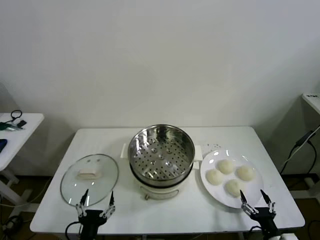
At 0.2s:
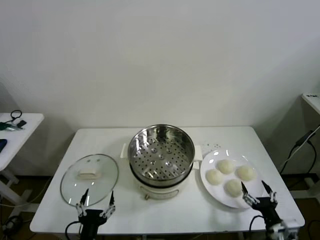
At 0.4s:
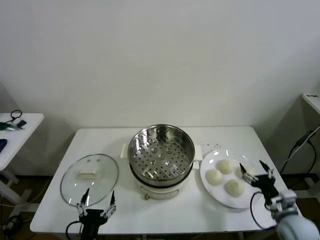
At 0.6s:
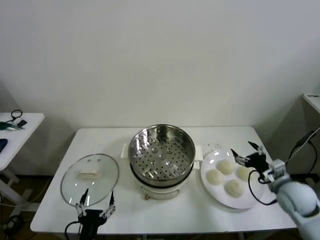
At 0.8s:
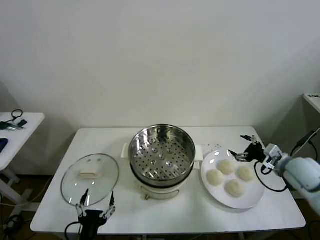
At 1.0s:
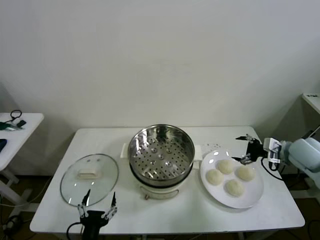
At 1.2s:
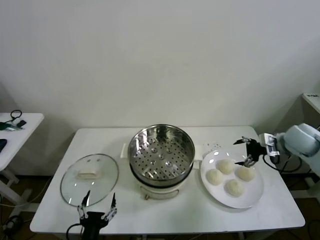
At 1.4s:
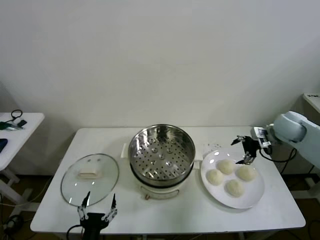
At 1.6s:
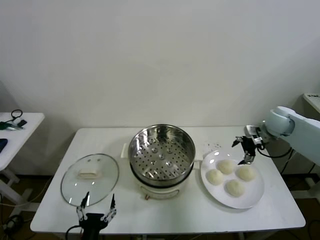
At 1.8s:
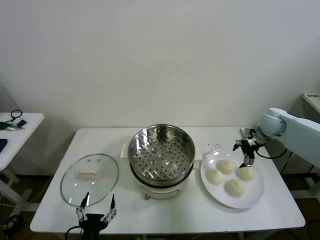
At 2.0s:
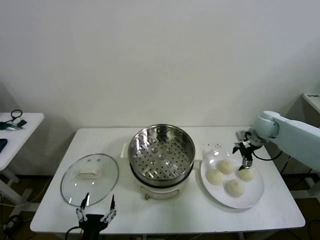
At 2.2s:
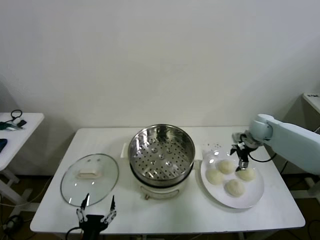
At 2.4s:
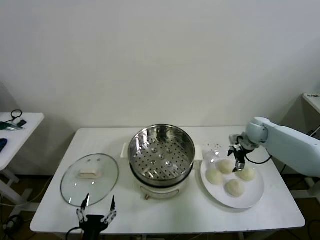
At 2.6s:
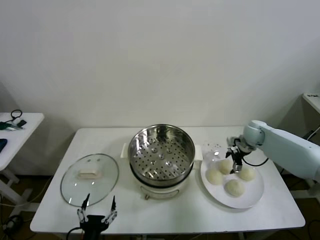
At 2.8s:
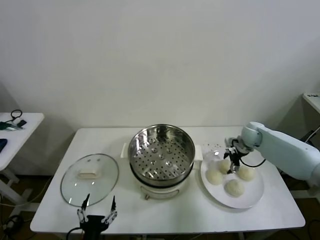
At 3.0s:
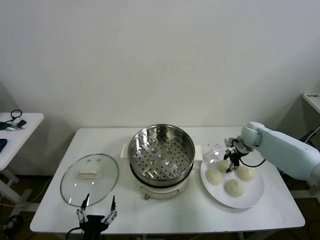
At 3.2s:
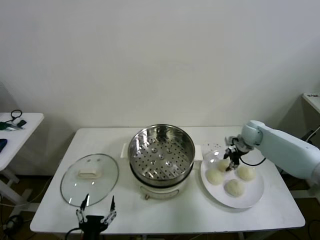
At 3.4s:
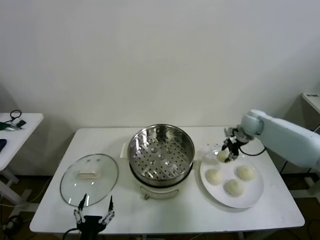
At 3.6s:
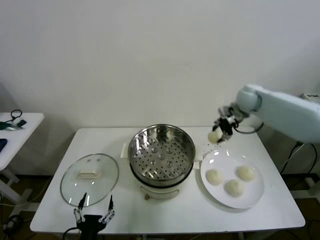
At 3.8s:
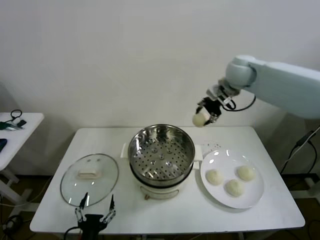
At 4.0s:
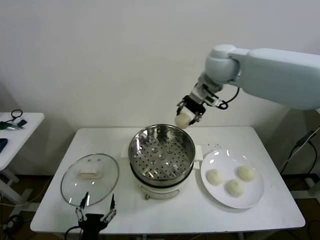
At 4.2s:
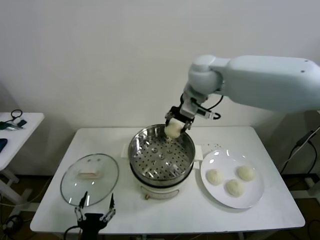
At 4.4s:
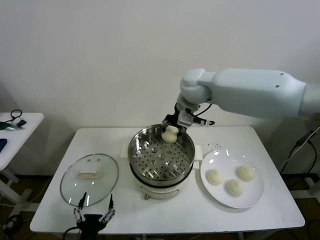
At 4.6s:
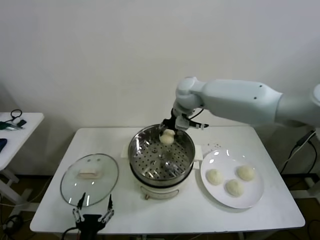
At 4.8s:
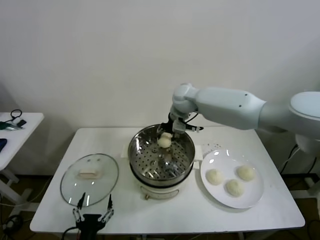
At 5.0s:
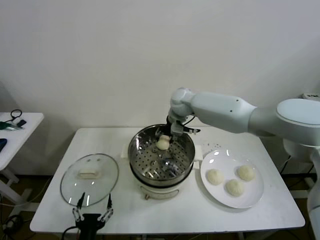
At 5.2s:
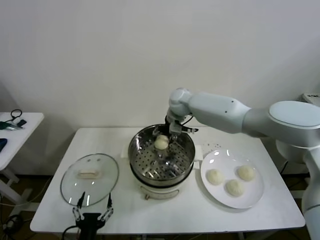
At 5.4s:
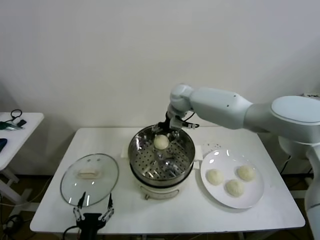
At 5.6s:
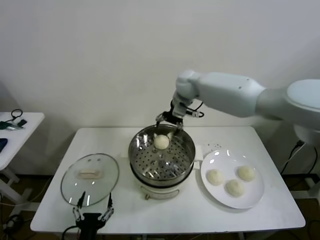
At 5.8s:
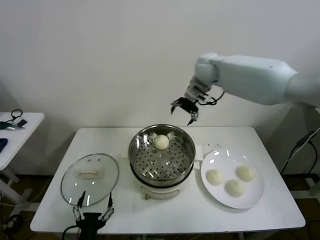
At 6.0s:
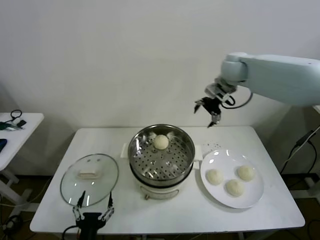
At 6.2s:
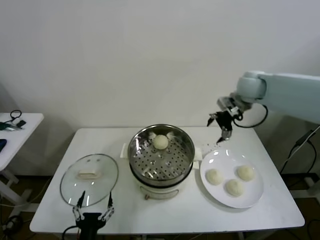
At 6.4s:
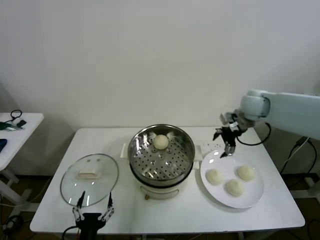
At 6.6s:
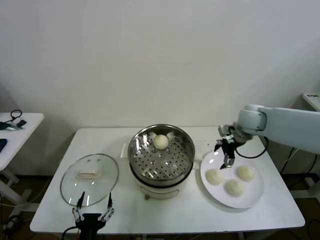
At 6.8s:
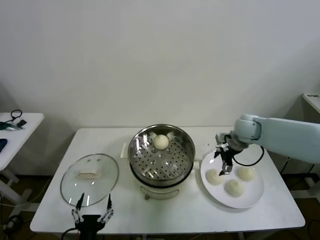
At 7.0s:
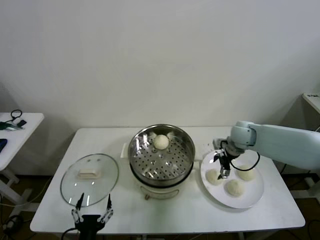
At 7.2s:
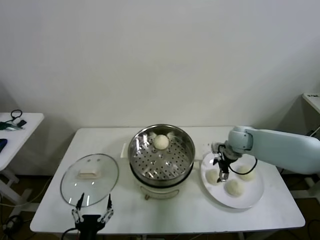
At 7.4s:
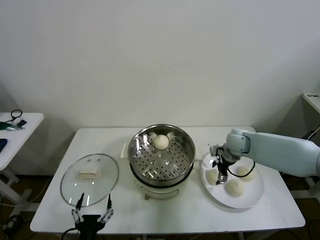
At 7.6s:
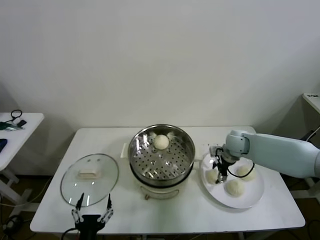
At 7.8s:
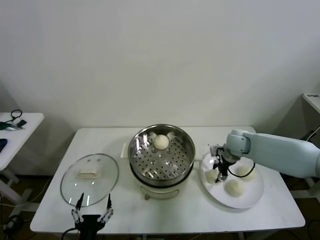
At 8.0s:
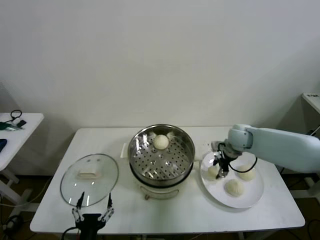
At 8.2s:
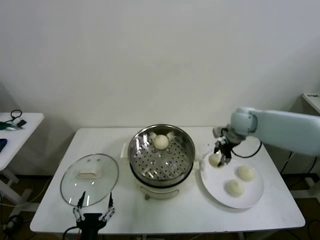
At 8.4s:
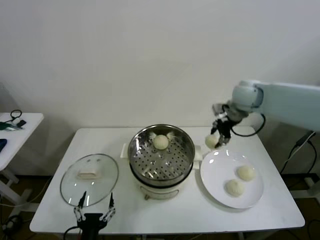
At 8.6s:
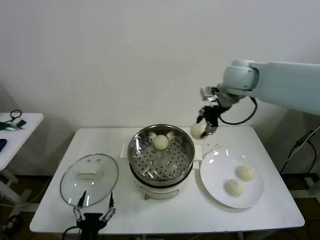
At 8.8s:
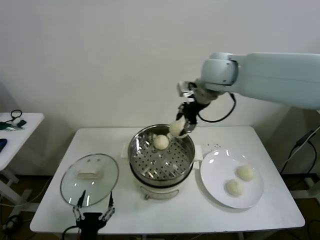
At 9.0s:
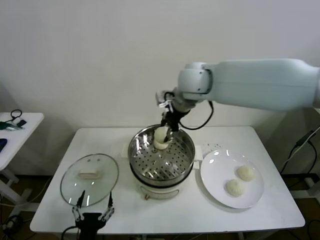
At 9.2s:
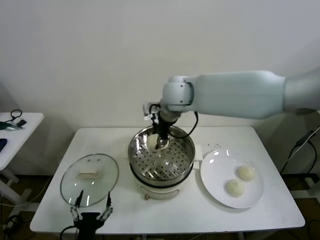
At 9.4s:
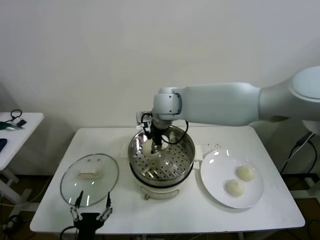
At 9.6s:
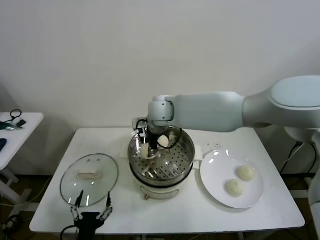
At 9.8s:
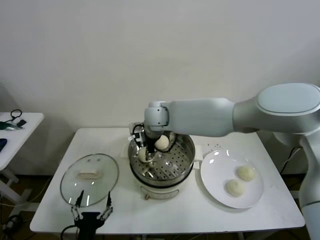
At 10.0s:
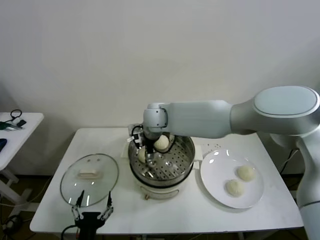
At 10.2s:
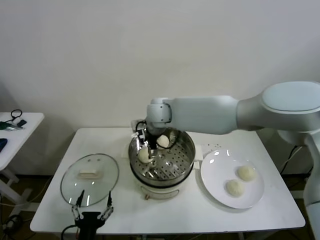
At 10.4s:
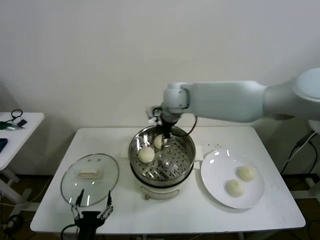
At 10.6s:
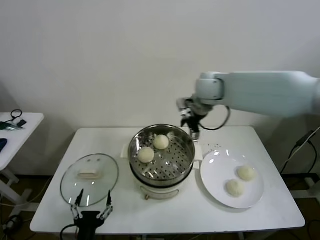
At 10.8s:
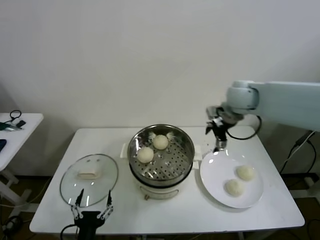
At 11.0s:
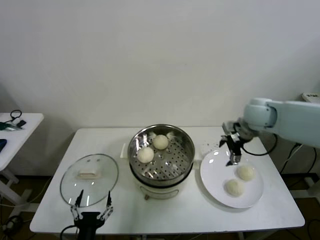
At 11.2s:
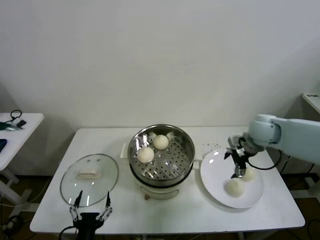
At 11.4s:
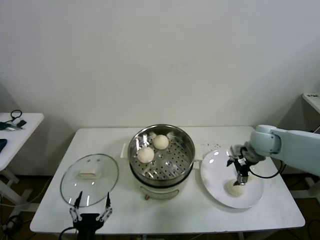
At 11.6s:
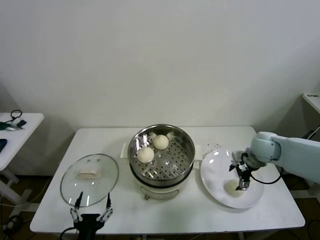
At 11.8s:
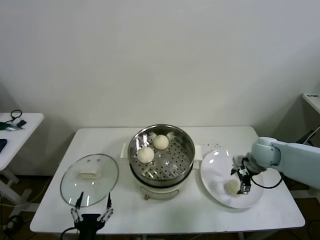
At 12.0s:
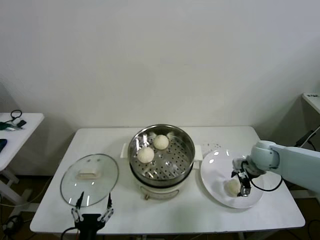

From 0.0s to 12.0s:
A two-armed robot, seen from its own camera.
Task of the whole recording: take steamed baozi put them in steamer then cover it.
Step, from 0.0s to 3.2s: Grasp the baozi in the plate with right gripper.
Step, from 3.4s to 5.2s: Place the baozi on the steamer with right gripper.
Step, from 5.6s to 7.8s: Grasp the baozi in the plate with right gripper.
Step, from 8.0s to 10.2s: Place the baozi on the steamer with right gripper.
From 1.6s to 3.0s: The right gripper goes some 10 cm downward, and closes.
From 3.0s to 4.4s: The right gripper heads to the left and upward, covering approximately 35 cm.
From 4.4s to 6.0s: The right gripper travels to the right by about 15 cm, and opens up.
From 6.0s to 7.6s: The right gripper is displaced downward by roughly 25 cm, and closes its fingers.
From 7.6s to 9.0s: The right gripper travels upward and to the left by about 35 cm.
From 9.0s to 10.4s: The right gripper opens up.
From 10.4s to 12.0s: The right gripper goes roughly 35 cm to the right and downward.

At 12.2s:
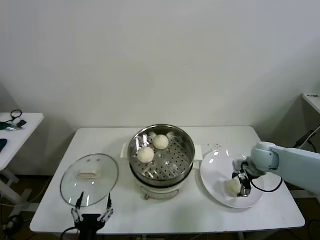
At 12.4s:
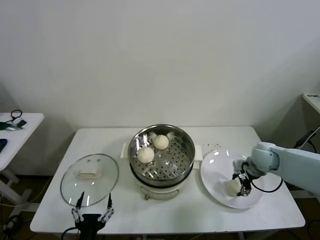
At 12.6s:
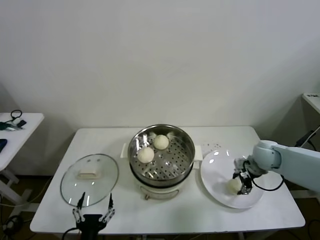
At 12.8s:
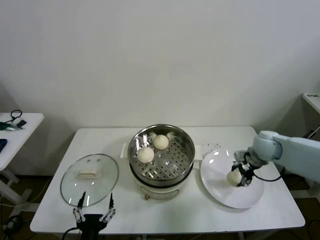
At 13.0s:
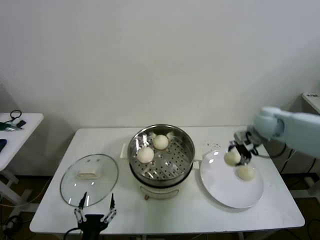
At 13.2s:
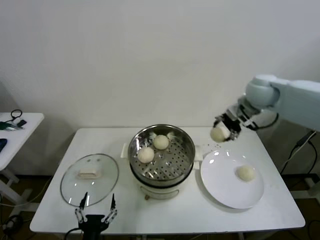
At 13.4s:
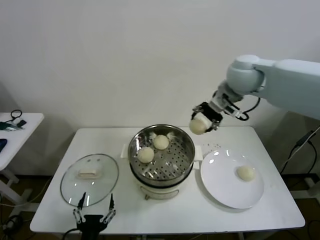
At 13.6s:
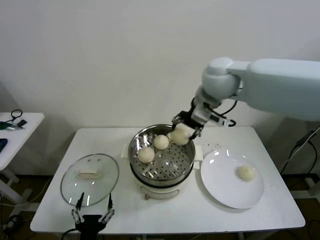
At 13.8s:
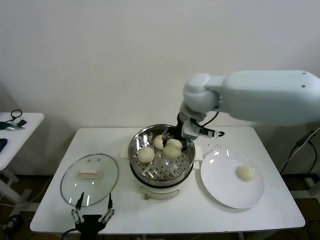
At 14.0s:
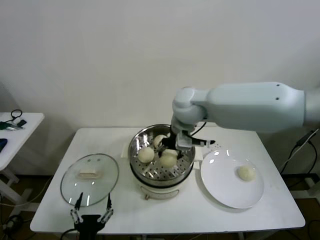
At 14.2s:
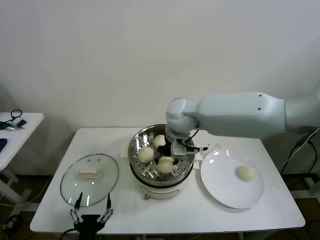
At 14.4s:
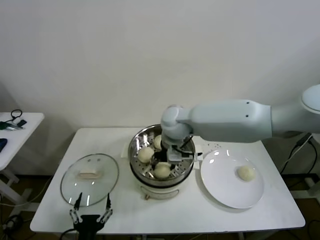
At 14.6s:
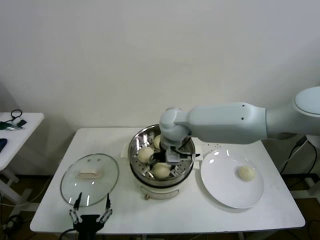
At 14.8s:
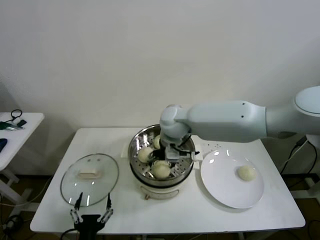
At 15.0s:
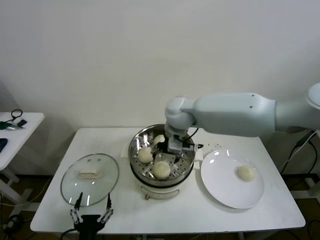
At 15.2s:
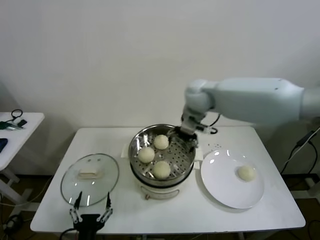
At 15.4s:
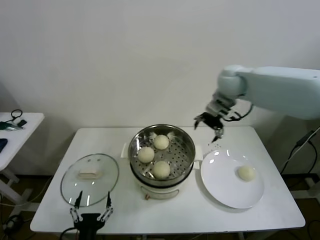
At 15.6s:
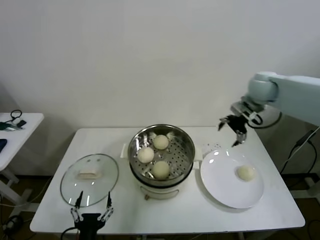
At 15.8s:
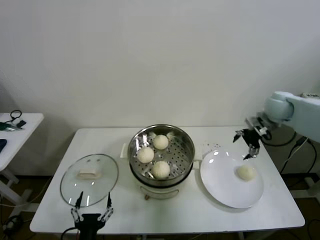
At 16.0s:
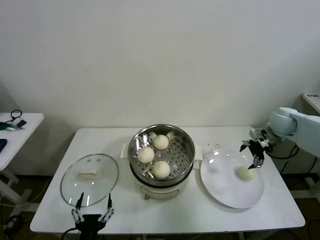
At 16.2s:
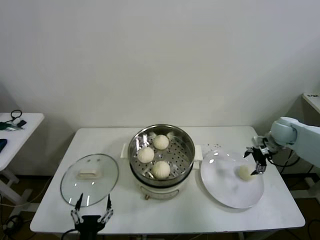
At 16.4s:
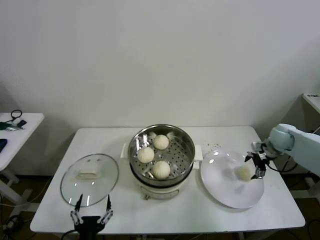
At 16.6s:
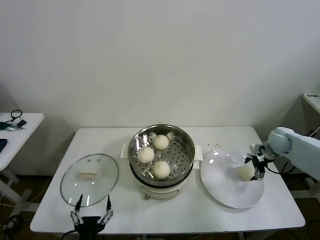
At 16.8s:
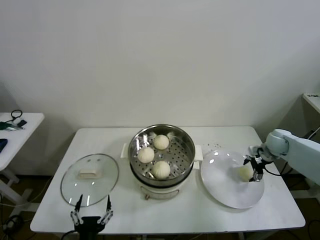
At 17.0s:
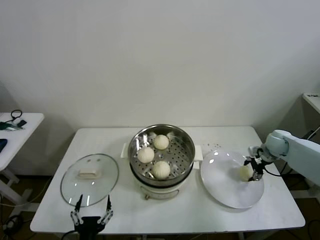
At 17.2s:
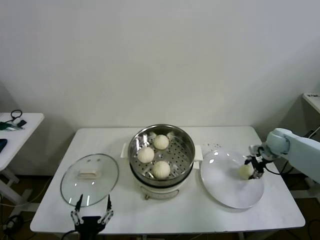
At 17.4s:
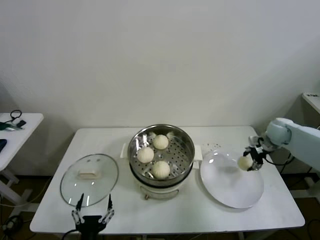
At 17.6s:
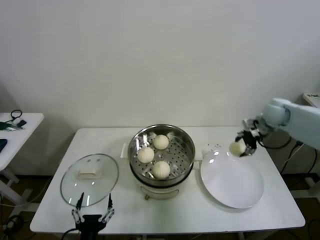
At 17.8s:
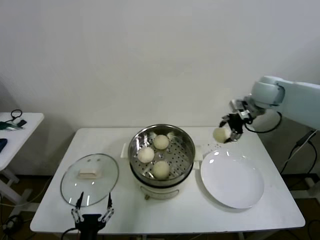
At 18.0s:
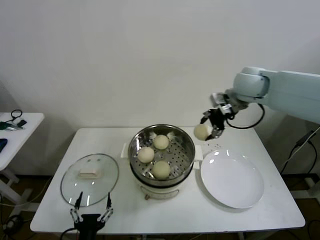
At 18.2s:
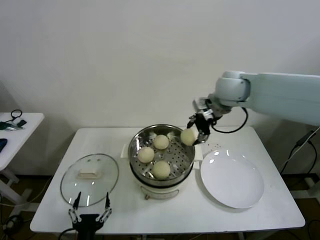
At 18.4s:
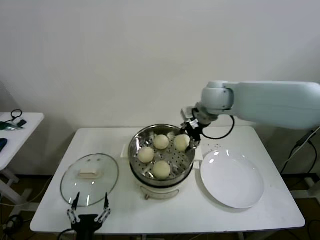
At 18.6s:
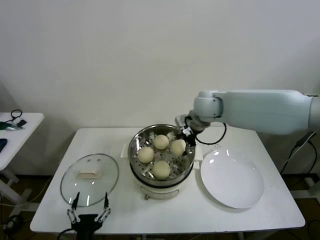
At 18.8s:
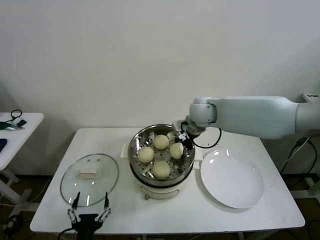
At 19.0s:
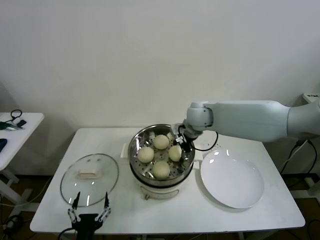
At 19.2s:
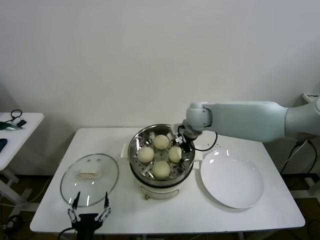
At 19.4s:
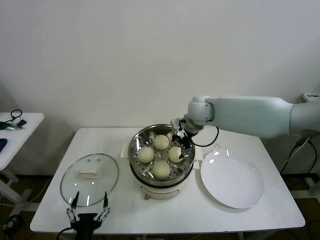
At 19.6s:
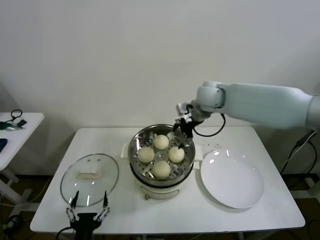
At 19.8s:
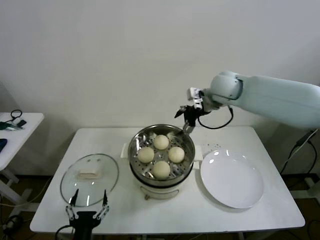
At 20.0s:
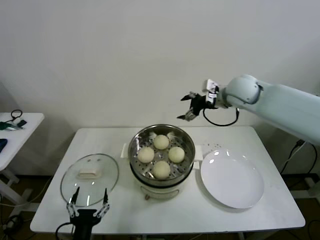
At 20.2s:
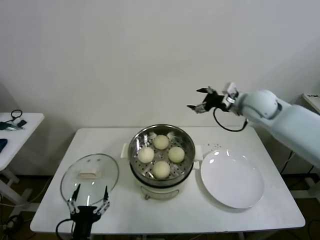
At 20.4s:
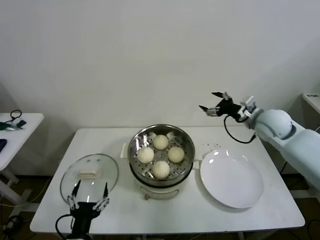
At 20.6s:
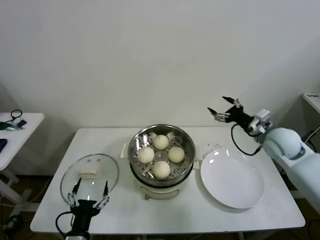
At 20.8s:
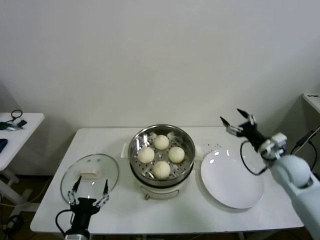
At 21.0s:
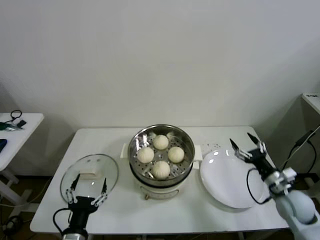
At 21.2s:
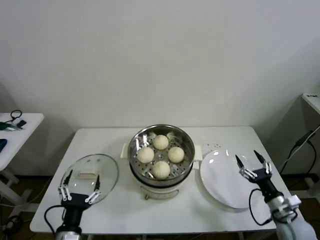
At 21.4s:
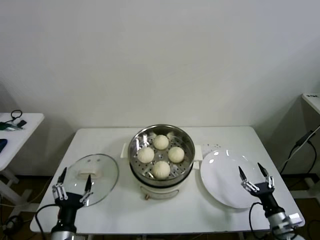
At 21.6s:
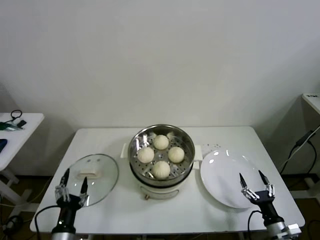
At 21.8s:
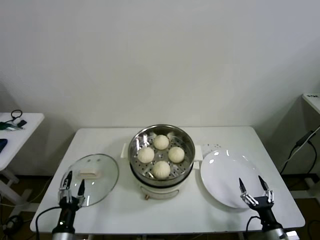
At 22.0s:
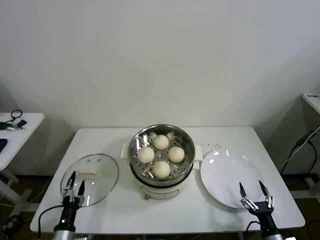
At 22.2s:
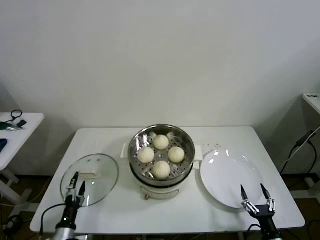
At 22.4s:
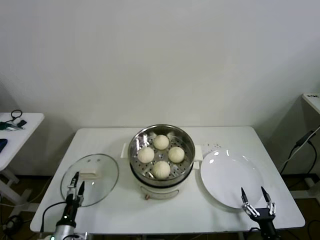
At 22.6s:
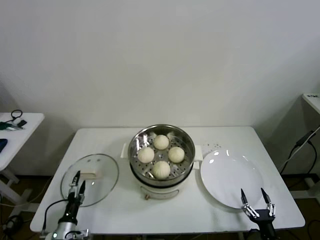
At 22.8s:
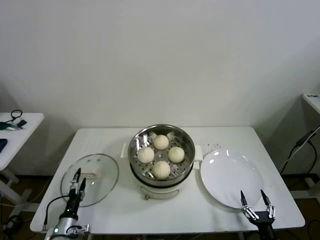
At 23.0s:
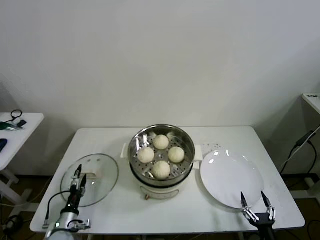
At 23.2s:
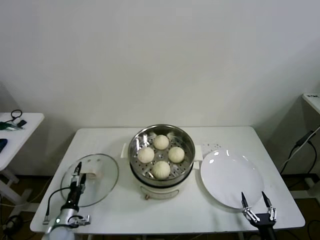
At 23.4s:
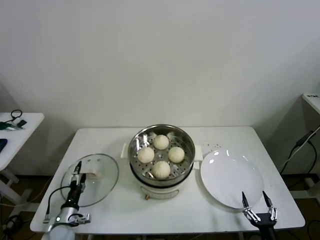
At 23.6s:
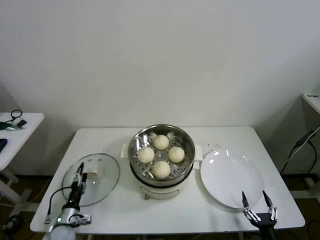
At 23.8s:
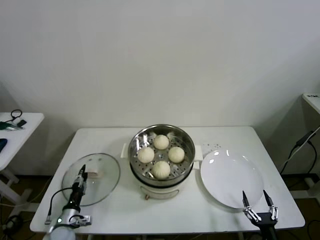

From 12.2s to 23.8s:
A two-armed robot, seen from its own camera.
Task of the whole recording: take steamed baozi put them in steamer then cover it.
Step, from 12.6s to 14.8s: Place the baozi on the steamer with right gripper.
Step, from 15.0s to 17.2s: Grasp the baozi in the plate with right gripper.
Step, from 17.4s to 19.4s: Place the baozi on the steamer with right gripper.
From 12.2s to 13.6s: The right gripper goes approximately 35 cm upward and to the left, and closes its fingers.
From 13.6s to 15.0s: The right gripper goes some 15 cm downward and to the left, and opens its fingers.
From 15.0s to 16.6s: The right gripper goes about 40 cm to the right and downward.
From 16.6s to 18.0s: The right gripper moves upward and to the left, about 30 cm, and closes.
From 18.0s to 19.4s: The right gripper goes roughly 15 cm to the left and downward, and opens up.
From 19.4s to 21.0s: The left gripper moves roughly 5 cm; the right gripper moves to the right, backward and downward, roughly 40 cm.
From 21.0s to 22.4s: The right gripper heads backward and downward, covering roughly 25 cm; the left gripper heads downward and to the left, covering approximately 20 cm.
From 22.4s to 23.8s: The left gripper travels forward by about 5 cm, and closes up.
